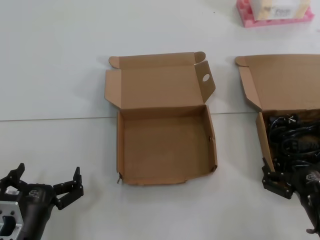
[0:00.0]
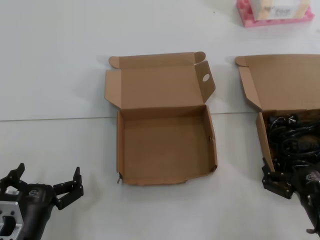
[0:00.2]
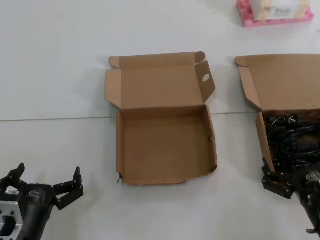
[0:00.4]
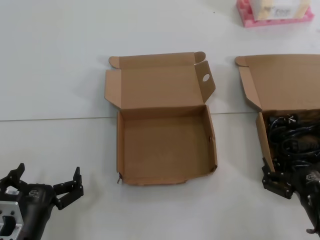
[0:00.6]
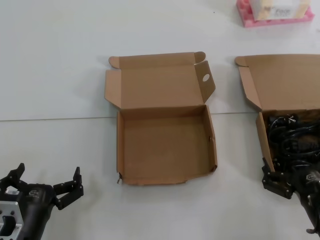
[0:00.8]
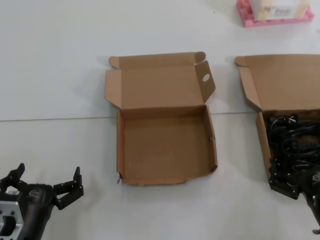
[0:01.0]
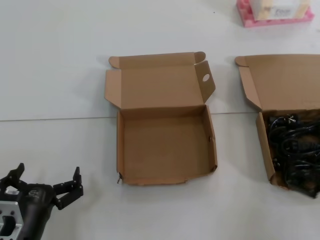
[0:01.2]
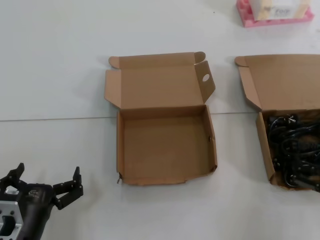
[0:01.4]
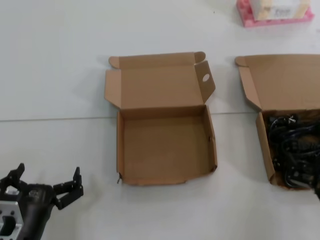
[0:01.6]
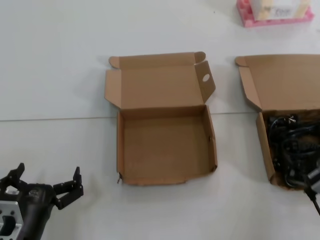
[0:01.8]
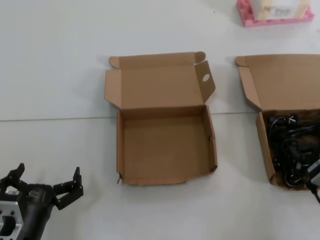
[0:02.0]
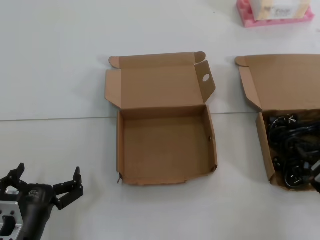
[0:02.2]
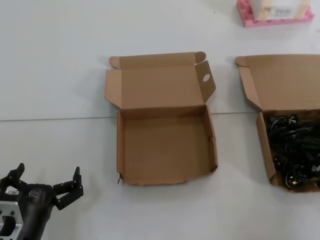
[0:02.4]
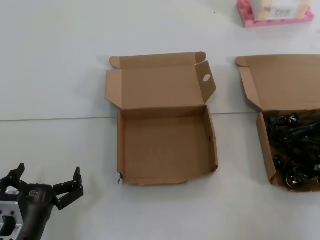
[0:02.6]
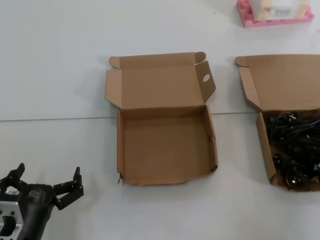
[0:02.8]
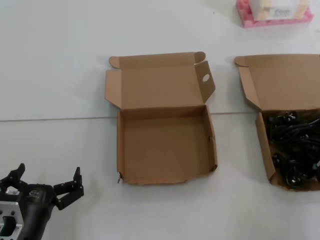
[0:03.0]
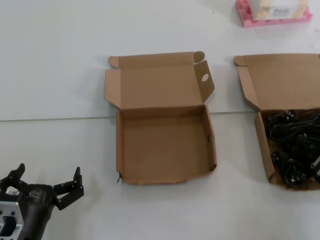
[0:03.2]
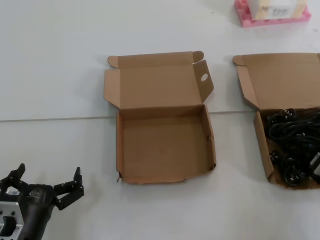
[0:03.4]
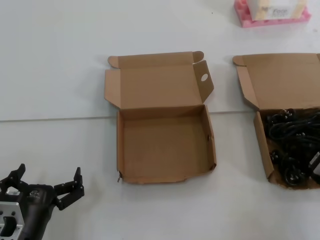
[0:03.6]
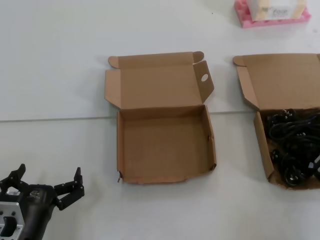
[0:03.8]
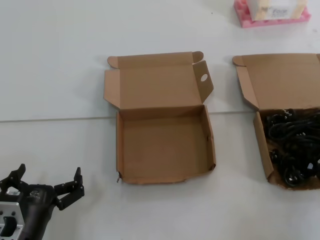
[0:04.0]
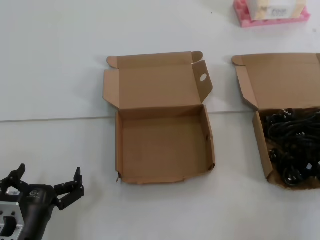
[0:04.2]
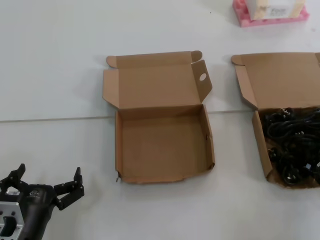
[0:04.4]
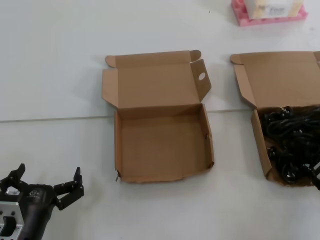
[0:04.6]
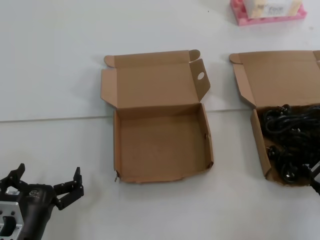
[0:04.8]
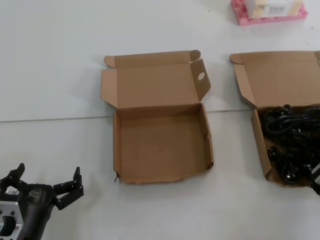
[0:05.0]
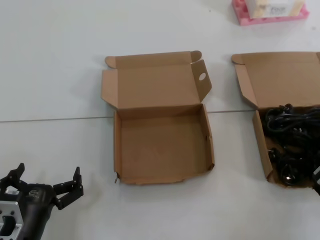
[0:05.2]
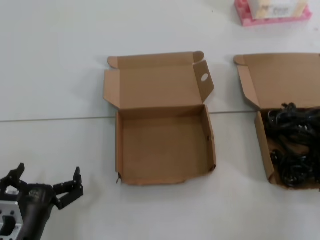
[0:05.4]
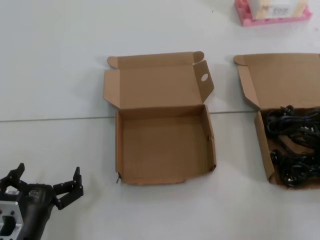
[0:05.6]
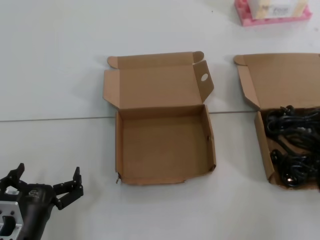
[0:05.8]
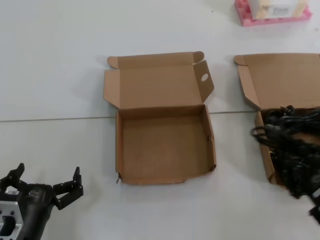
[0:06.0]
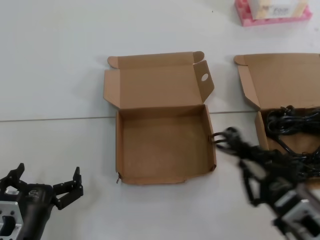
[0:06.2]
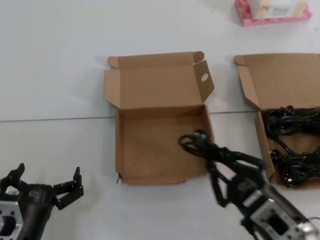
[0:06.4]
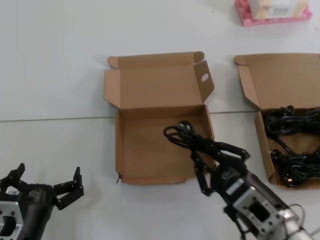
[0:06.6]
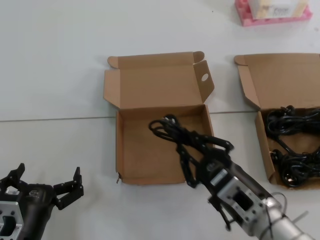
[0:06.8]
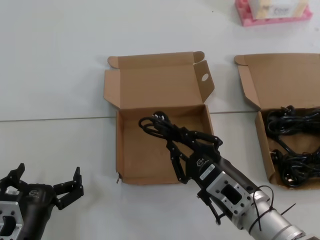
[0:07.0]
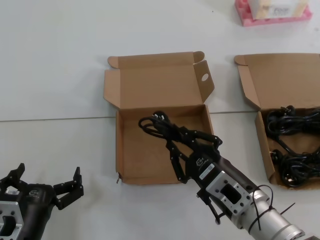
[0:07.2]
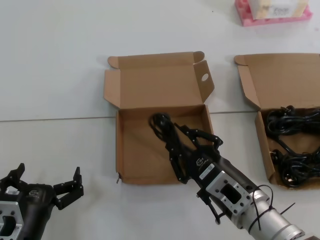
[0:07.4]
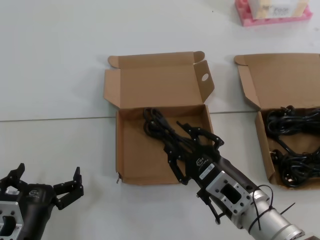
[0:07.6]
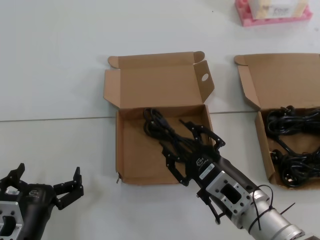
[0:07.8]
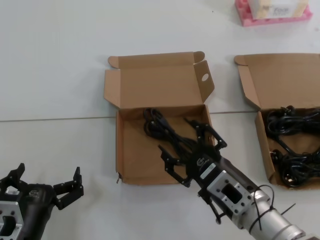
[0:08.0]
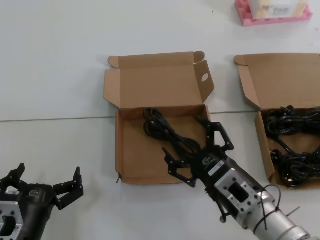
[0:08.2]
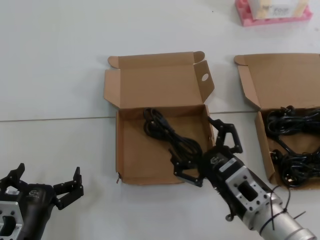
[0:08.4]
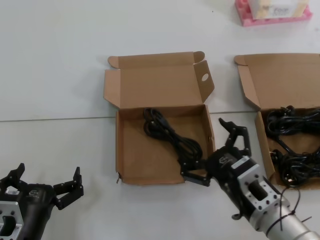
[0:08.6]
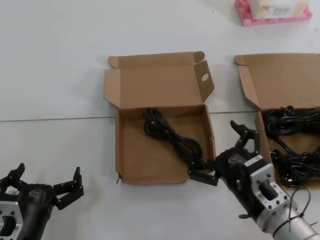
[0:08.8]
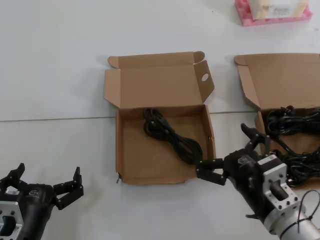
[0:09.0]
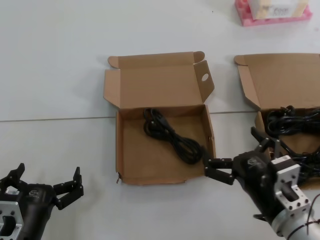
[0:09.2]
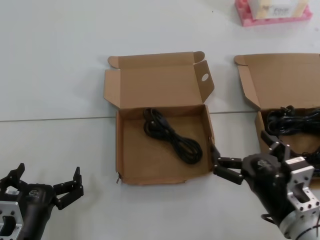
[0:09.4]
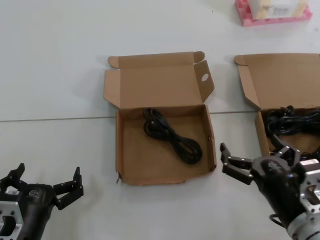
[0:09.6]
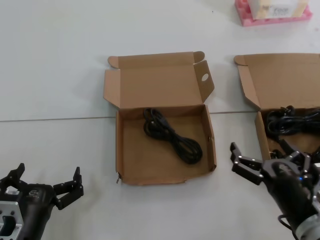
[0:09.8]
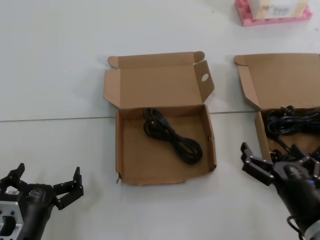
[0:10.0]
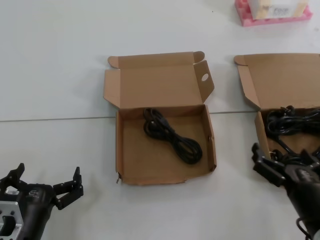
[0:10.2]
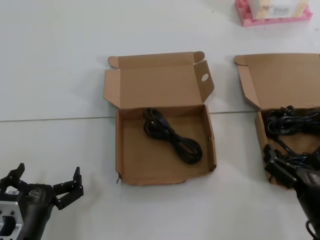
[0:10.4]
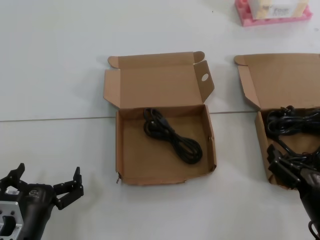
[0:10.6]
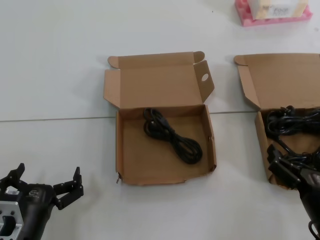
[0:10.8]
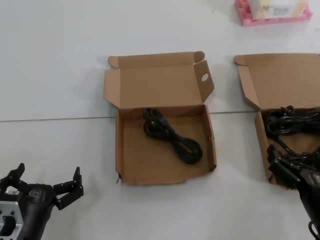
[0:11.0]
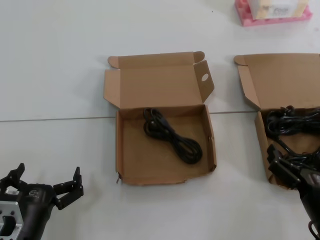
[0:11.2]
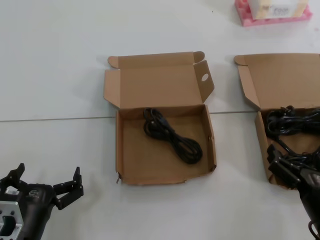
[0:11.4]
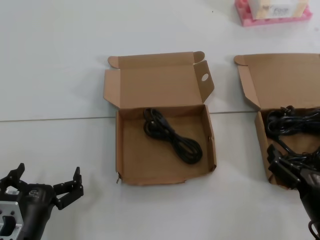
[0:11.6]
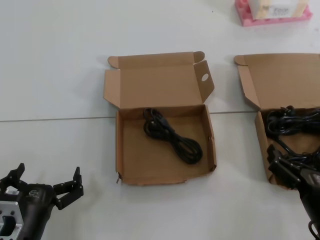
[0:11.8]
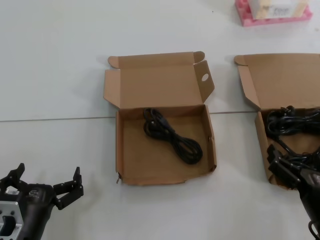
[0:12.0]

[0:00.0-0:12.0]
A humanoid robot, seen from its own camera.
Task of the whole recording: take the parts from the box containing them and put them into an empty box.
Step, 0:00.0 to 0:04.6: Grasp the data cable.
Step, 0:04.8 to 0:07.6: Place the data cable in the another box.
0:03.0 to 0:04.4: The hands stay close to where they were, moving slightly.
0:04.4 to 0:06.0: The right hand heads backward and upward, covering about 15 cm.
0:06.0 to 0:07.6: The right hand goes roughly 15 cm to the left and forward.
0:09.0 to 0:10.4: The right hand is displaced to the right by approximately 10 cm.
0:10.4 to 0:12.0: Both hands stay about where they are.

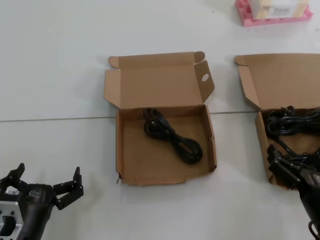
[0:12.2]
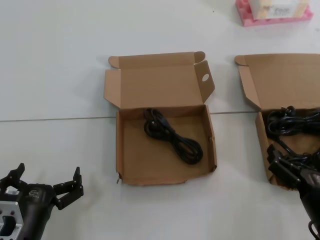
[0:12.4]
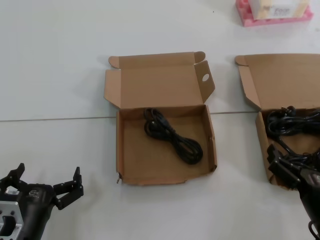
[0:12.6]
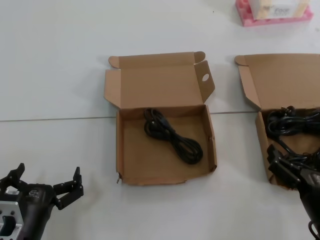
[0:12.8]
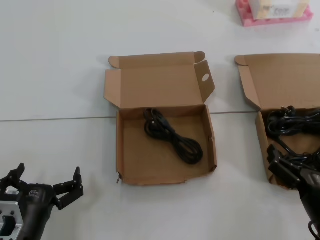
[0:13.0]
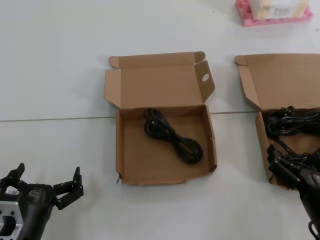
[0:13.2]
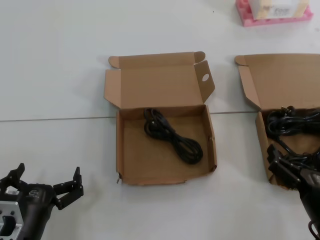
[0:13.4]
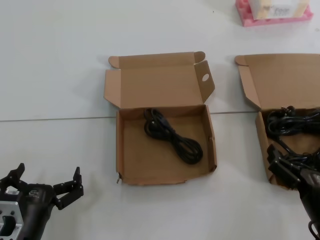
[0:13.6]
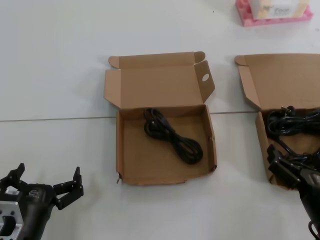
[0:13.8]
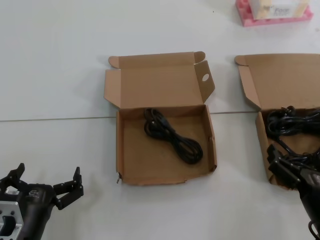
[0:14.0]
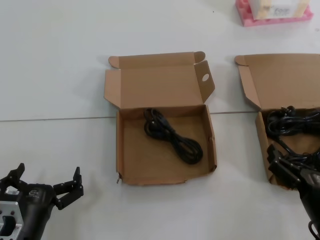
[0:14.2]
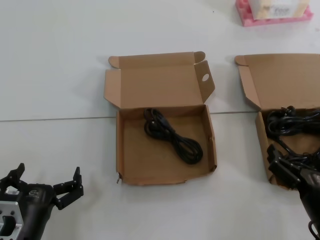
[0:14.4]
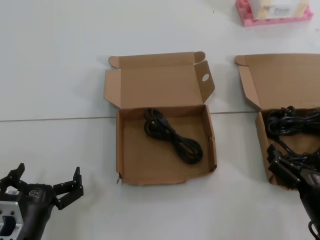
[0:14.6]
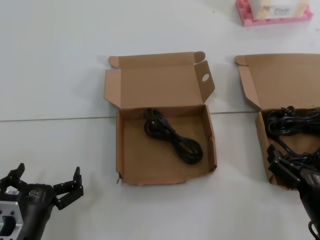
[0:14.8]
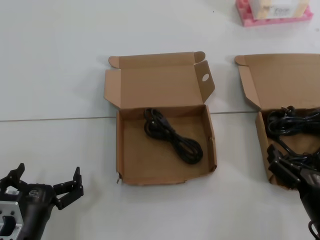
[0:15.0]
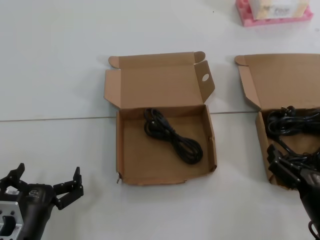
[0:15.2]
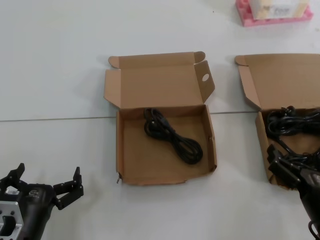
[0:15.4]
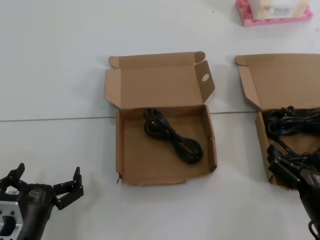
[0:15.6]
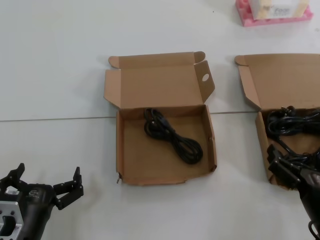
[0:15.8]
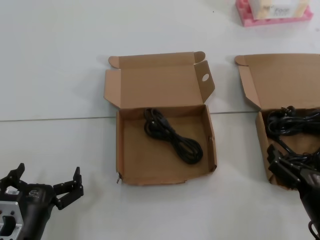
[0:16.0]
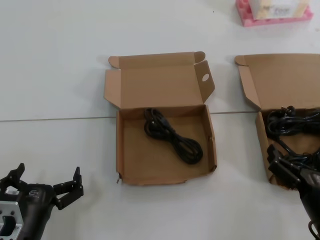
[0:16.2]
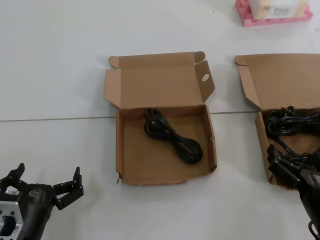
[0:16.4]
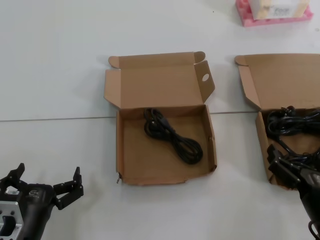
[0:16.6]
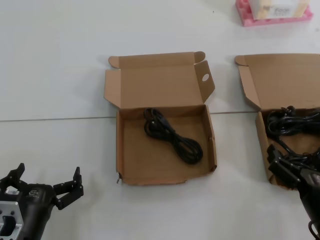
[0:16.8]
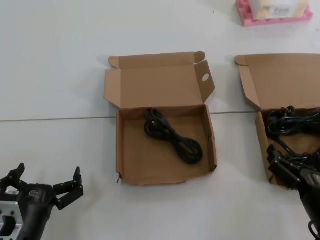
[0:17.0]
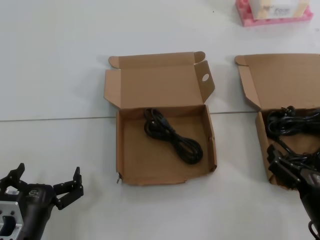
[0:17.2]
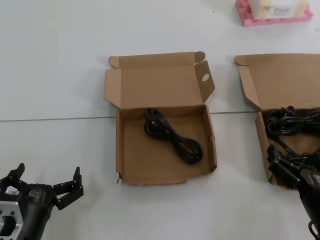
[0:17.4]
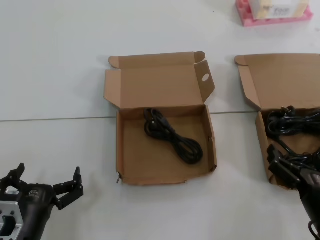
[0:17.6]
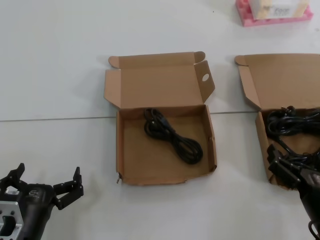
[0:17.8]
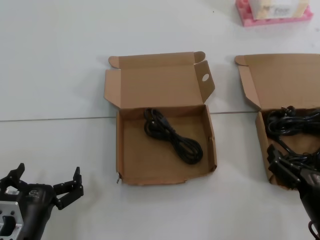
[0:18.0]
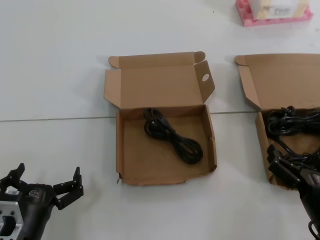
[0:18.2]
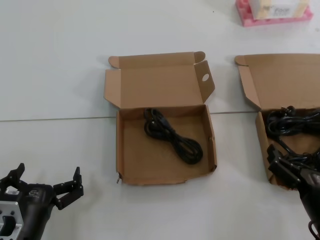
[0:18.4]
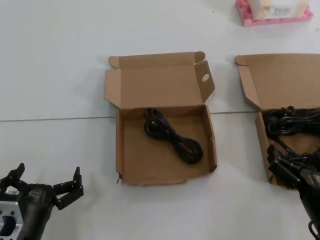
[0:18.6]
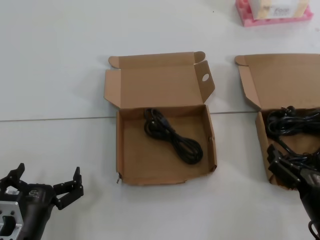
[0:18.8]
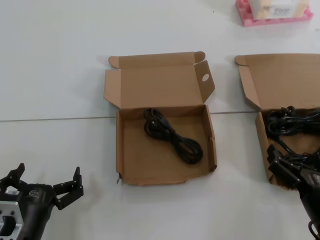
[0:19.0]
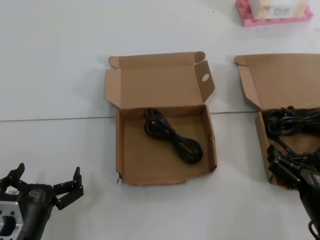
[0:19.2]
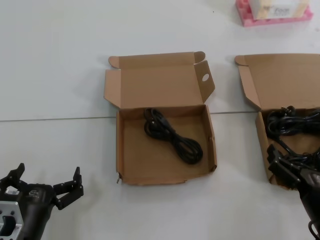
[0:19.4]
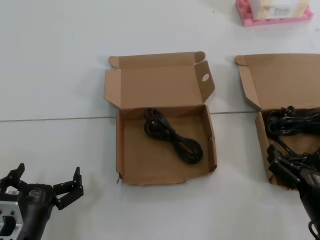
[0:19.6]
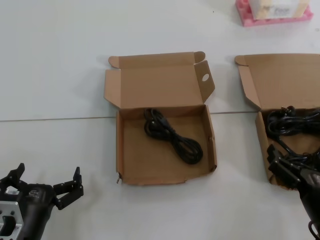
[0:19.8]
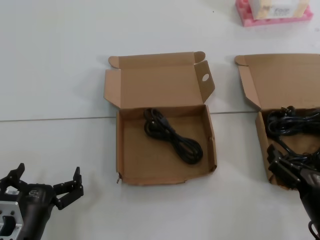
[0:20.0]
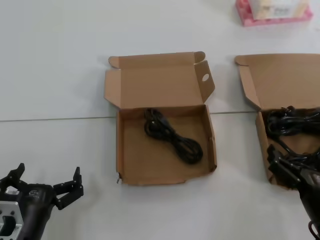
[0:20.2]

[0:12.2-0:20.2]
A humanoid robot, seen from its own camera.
Task of the whole recording: take the parts from the box containing them and put them into an empty box.
0:12.2 to 0:20.2: Both hands stay put.

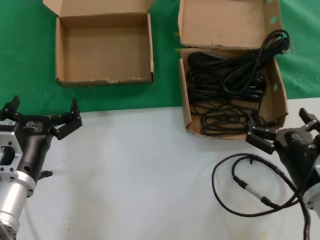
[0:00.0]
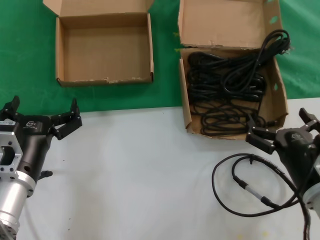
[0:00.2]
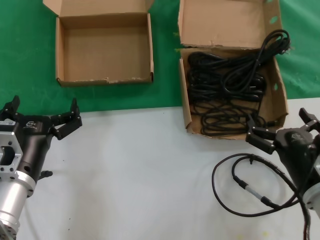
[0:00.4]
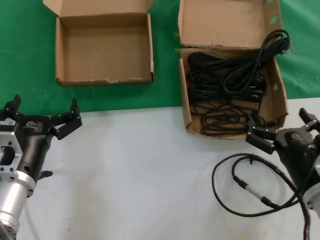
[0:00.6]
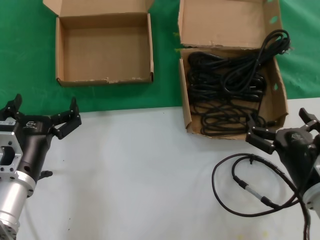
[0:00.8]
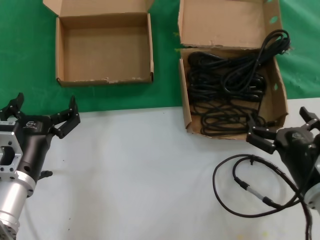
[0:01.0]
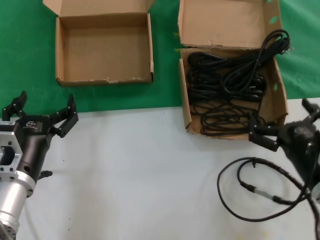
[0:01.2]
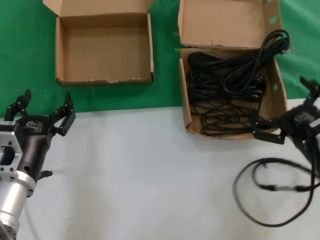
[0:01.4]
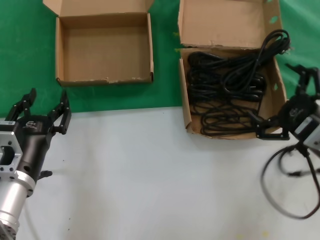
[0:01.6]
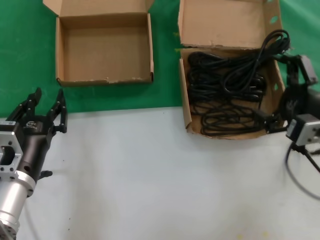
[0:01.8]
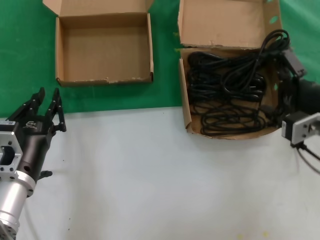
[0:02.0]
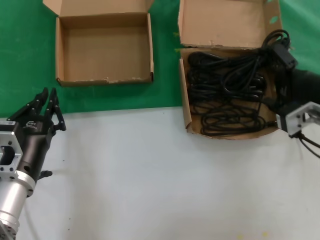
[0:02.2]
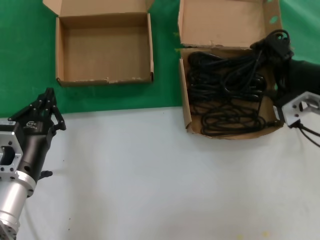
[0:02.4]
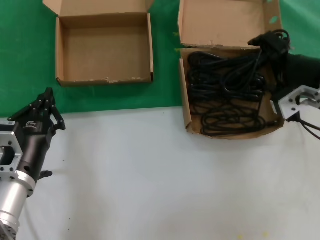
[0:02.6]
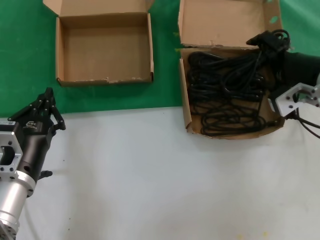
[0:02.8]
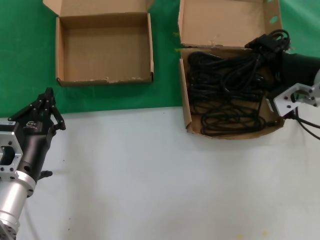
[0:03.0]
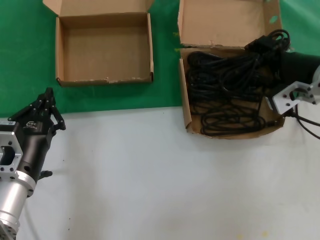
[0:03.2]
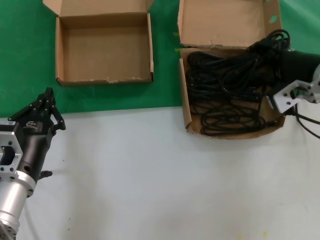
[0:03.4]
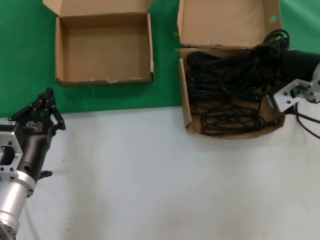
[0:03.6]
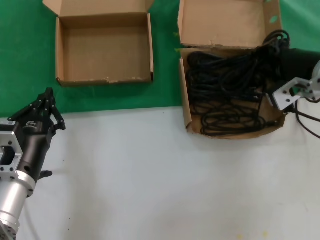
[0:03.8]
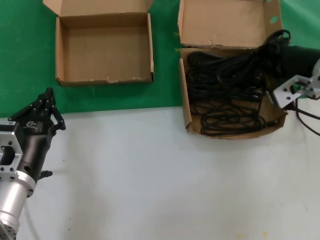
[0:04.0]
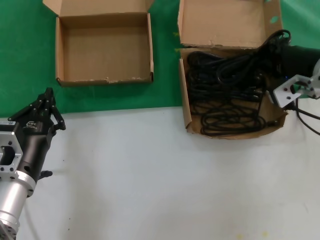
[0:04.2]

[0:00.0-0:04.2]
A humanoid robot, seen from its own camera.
Task of the whole recording: take the parts from the box containing them and put them into an empty box.
Step, 0:00.0 to 0:03.8: Grasp the data cable.
0:00.0 to 0:01.4: The right hand changes place by some 5 cm.
0:01.4 to 0:02.8: The right hand moves upward and forward, about 20 cm.
0:02.8 to 0:04.2: The hands make only small movements.
